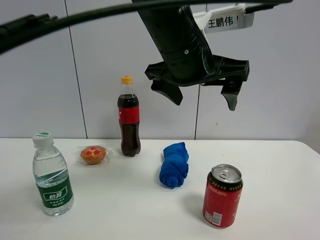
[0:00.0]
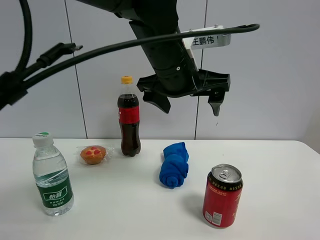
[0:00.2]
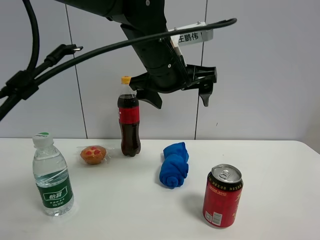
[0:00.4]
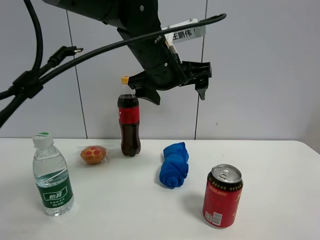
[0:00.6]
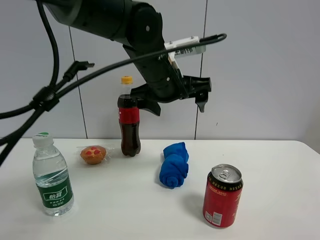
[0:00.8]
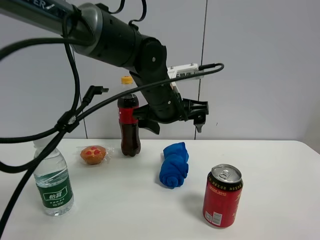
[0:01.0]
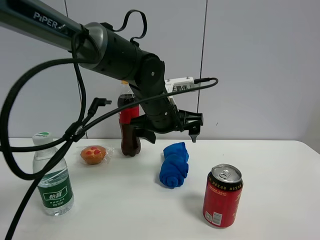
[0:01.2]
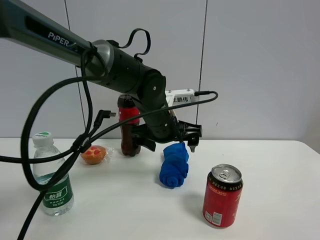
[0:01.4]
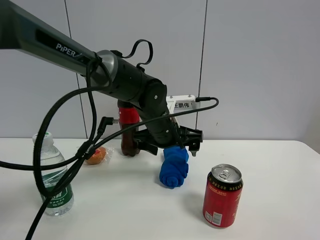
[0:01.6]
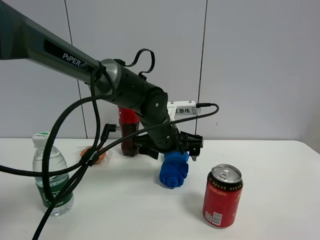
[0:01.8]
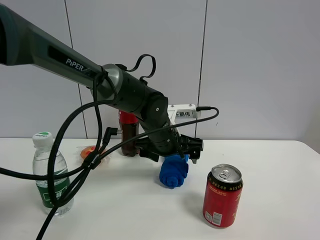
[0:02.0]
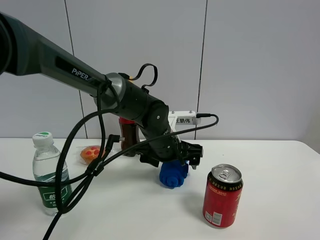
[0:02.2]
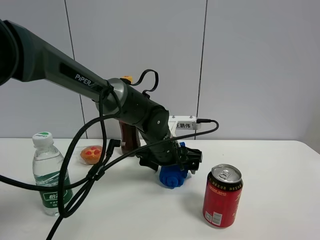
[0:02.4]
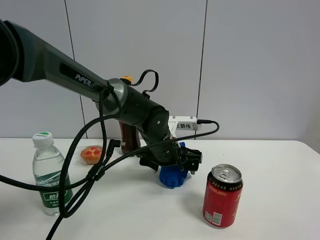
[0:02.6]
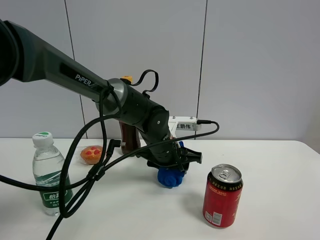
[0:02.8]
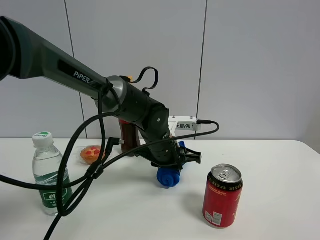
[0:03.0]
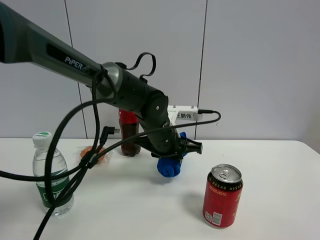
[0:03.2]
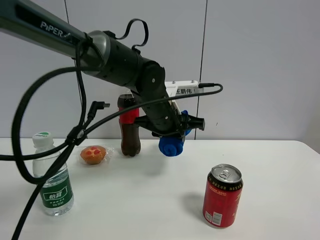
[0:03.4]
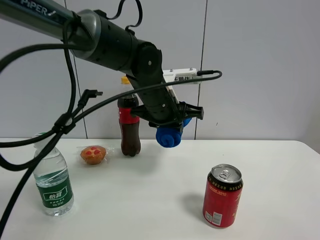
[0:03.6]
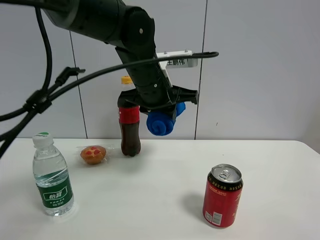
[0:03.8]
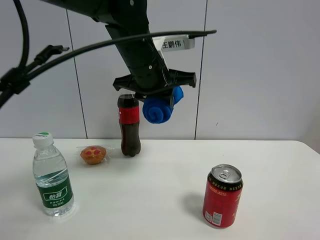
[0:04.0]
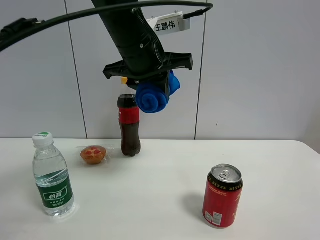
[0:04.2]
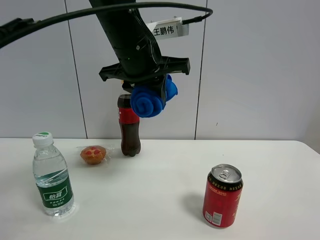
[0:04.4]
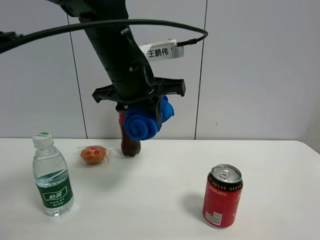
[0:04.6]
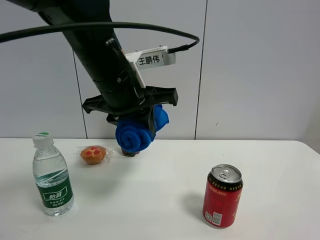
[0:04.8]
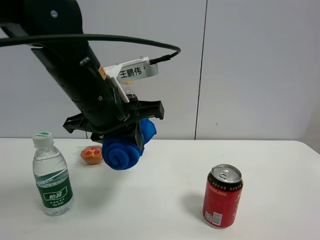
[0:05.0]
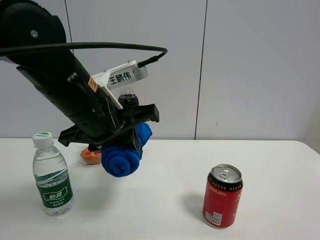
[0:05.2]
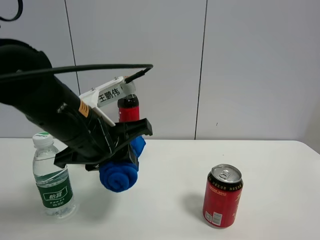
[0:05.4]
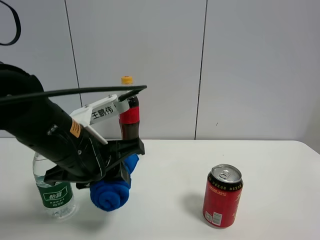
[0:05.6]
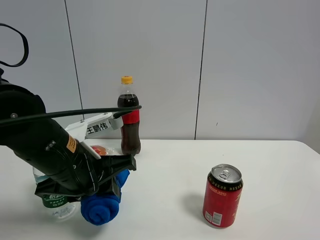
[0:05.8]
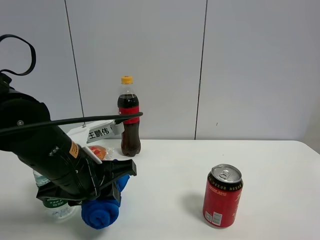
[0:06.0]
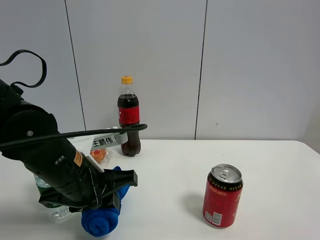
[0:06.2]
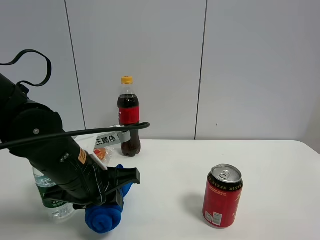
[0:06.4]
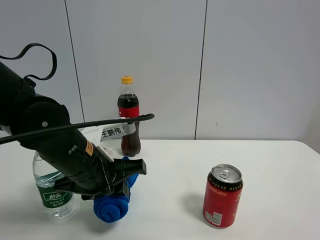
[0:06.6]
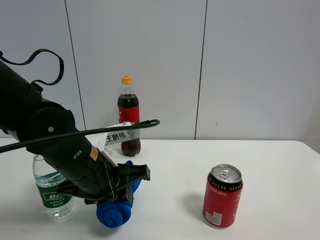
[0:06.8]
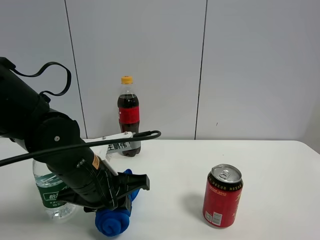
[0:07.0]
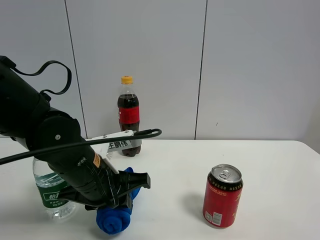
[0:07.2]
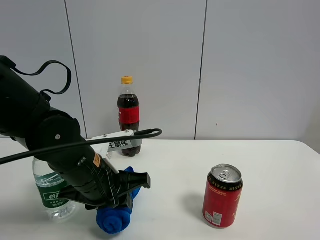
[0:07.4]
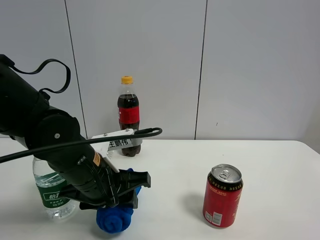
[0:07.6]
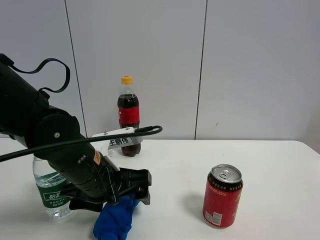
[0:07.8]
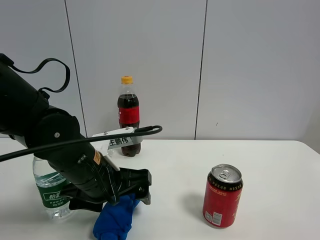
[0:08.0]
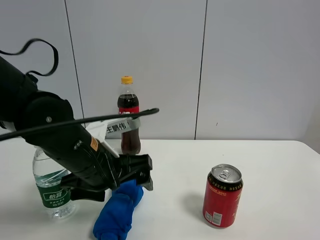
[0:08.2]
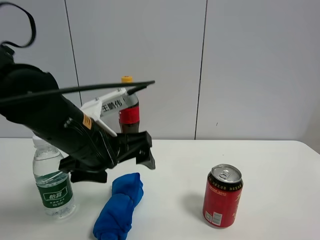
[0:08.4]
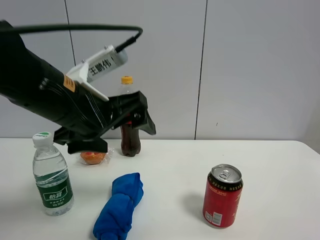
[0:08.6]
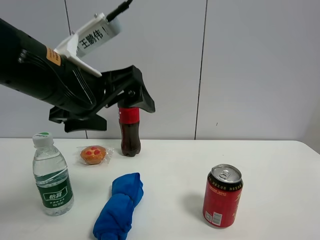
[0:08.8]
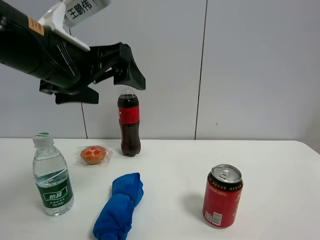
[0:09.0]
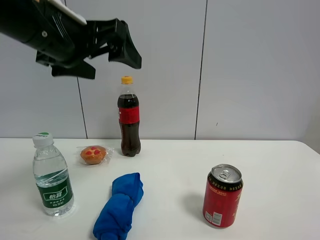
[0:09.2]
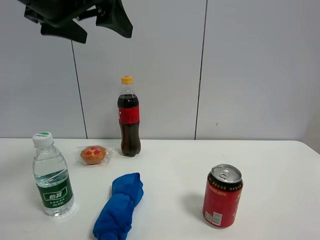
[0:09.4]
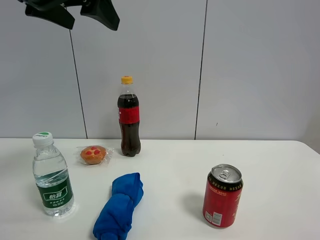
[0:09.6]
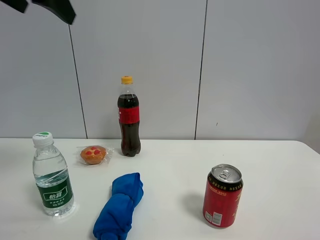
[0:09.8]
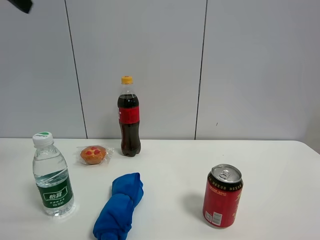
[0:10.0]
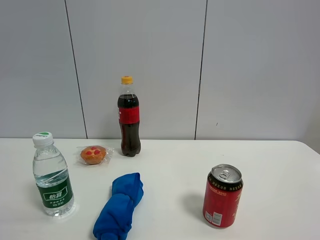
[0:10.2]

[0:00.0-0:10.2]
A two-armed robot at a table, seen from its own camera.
Task of the whole recording: the gripper move the object.
Step, 0:00.0 to 0:02.8: Grasp the blue towel with the left gripper.
Step, 0:03.0 to 0:08.0: Place the blue towel on the table with the left gripper.
0:00.0 to 0:01.4: The left gripper goes about 15 cm downward and forward.
0:01.4 to 0:03.0: The left gripper closes its fingers.
0:03.0 to 0:04.4: The left gripper goes about 20 cm upward.
0:04.4 to 0:05.8: The left gripper is displaced downward, backward and to the left by some 20 cm.
0:05.8 to 0:07.2: The grippers make only small movements.
0:07.2 to 0:08.8: The left gripper shifts about 15 cm upward, and opens.
0:08.8 to 0:10.2: The left gripper heads to the left and upward, covering approximately 30 cm.

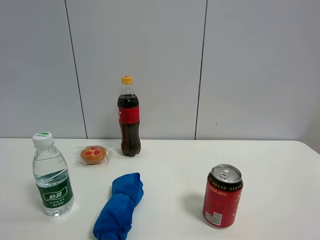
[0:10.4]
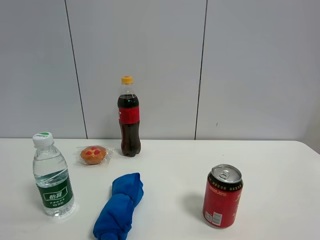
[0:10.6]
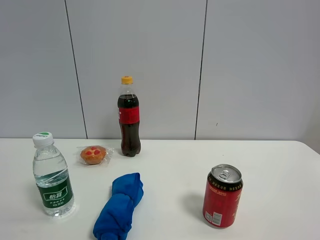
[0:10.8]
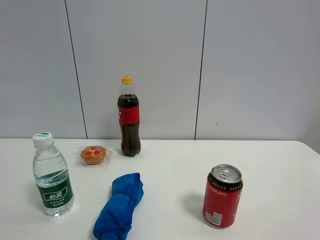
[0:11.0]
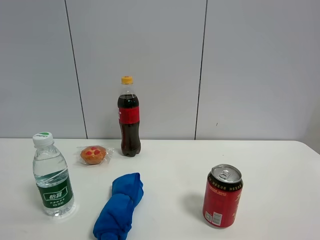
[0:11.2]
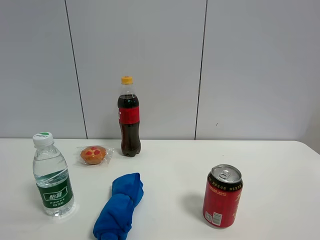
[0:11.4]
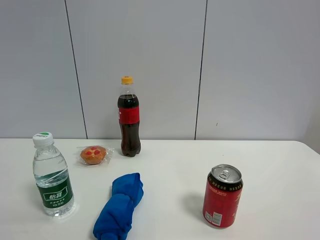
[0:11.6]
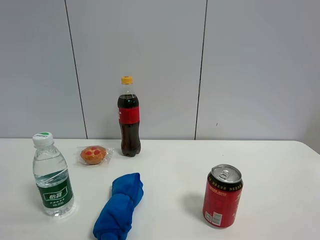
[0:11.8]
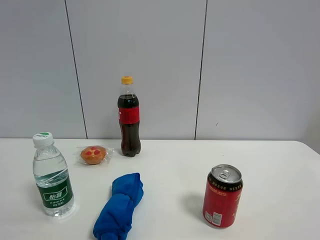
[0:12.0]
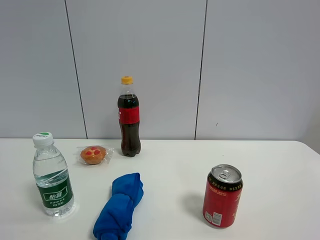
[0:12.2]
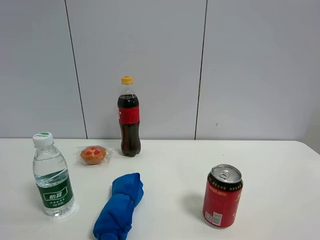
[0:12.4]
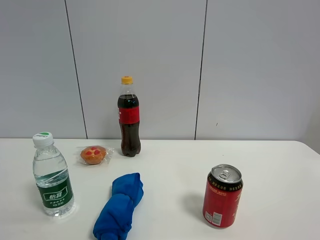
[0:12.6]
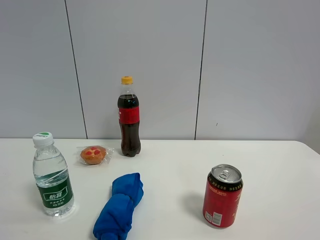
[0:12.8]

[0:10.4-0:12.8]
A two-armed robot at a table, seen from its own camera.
Task of the whole recording: the gripper move the object.
0:11.6 to 0:12.8: Both grippers stay about where they are.

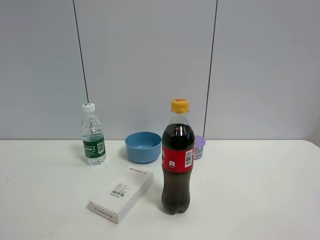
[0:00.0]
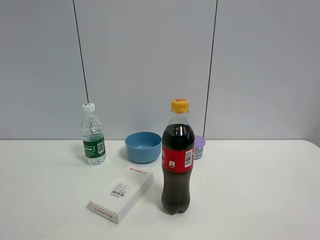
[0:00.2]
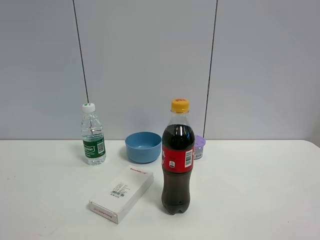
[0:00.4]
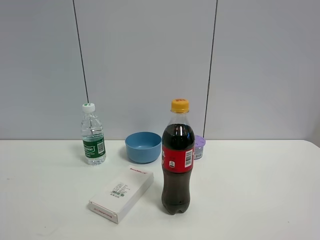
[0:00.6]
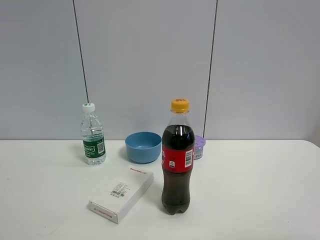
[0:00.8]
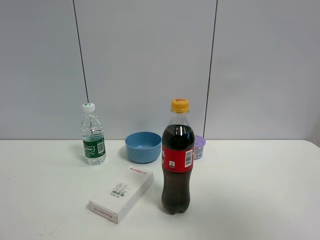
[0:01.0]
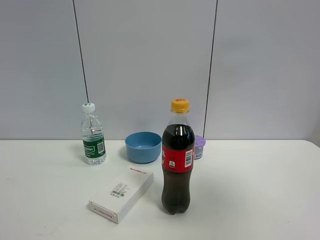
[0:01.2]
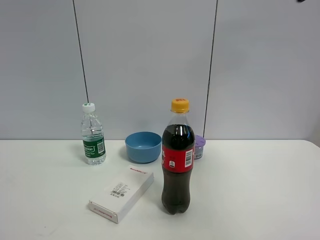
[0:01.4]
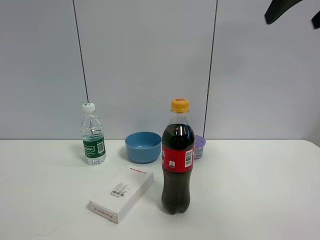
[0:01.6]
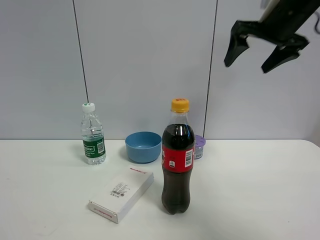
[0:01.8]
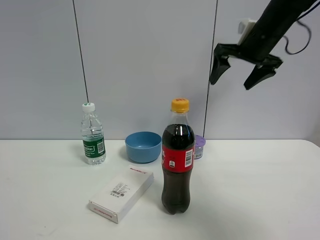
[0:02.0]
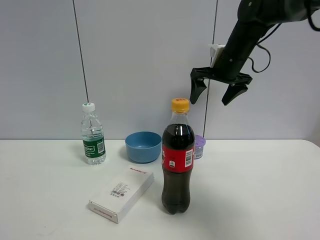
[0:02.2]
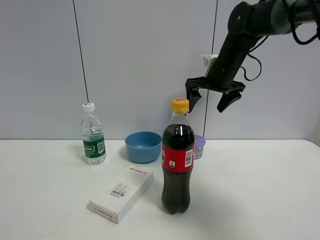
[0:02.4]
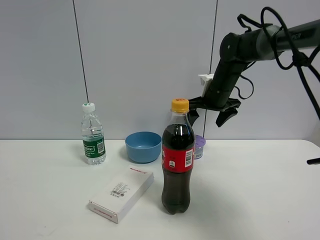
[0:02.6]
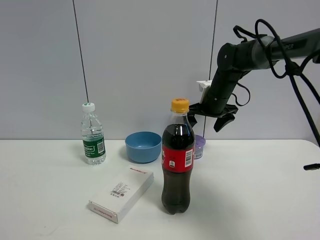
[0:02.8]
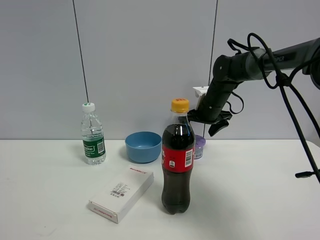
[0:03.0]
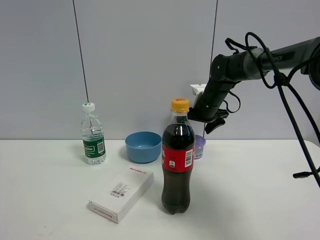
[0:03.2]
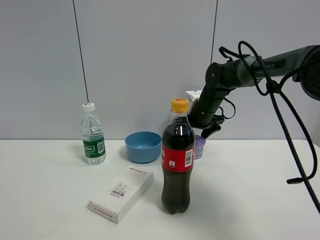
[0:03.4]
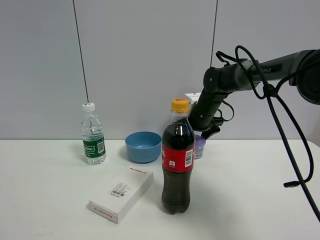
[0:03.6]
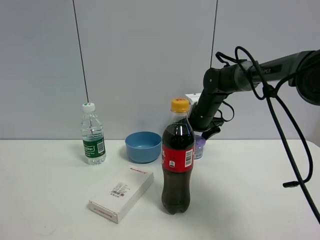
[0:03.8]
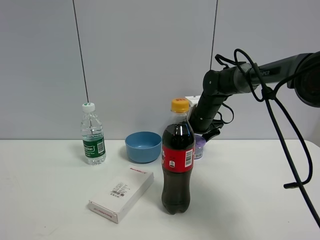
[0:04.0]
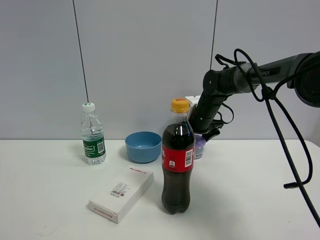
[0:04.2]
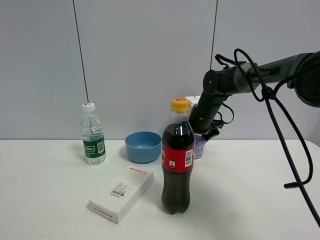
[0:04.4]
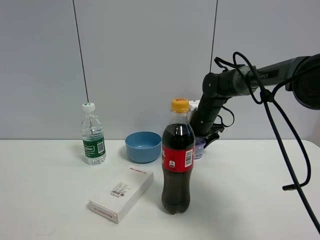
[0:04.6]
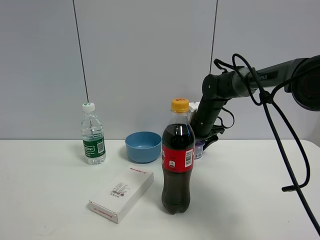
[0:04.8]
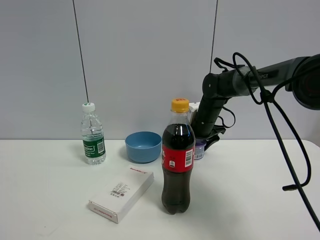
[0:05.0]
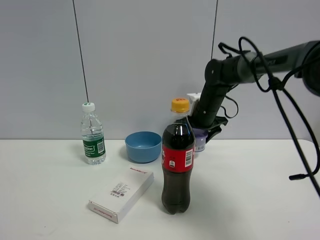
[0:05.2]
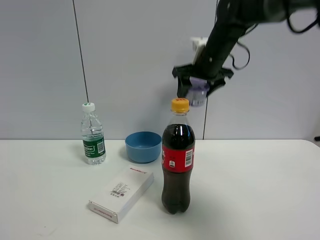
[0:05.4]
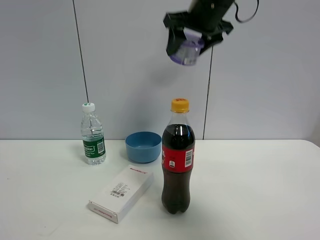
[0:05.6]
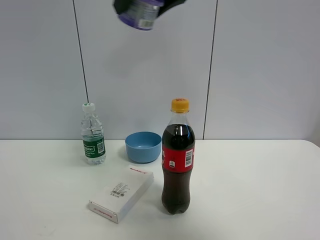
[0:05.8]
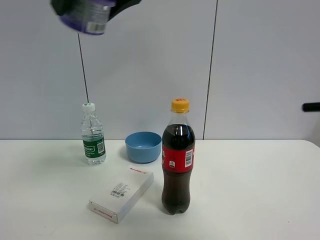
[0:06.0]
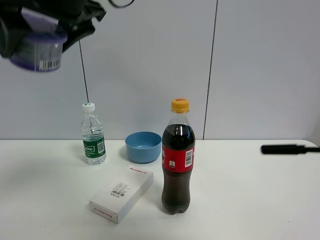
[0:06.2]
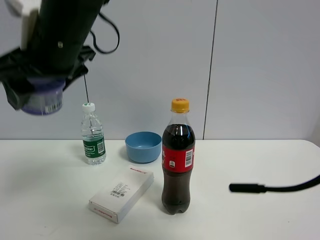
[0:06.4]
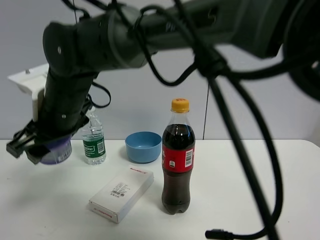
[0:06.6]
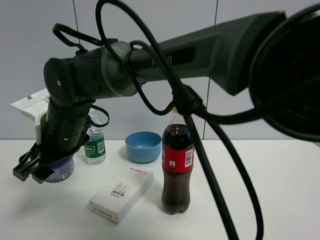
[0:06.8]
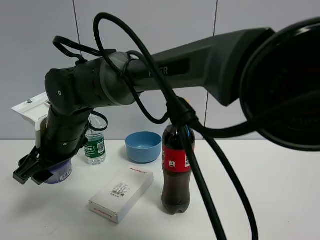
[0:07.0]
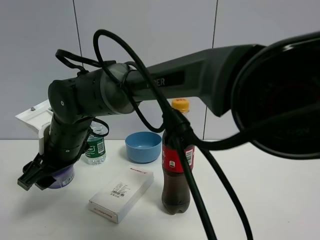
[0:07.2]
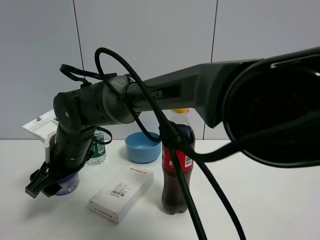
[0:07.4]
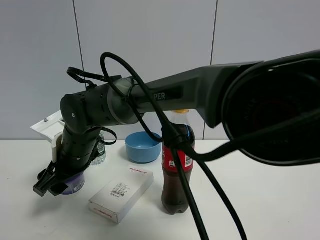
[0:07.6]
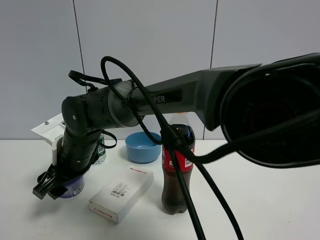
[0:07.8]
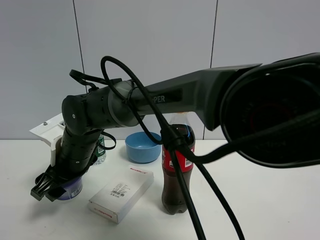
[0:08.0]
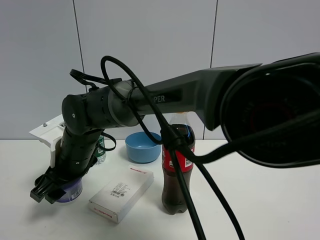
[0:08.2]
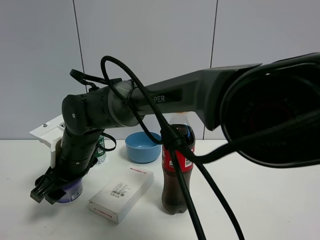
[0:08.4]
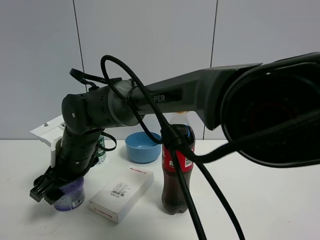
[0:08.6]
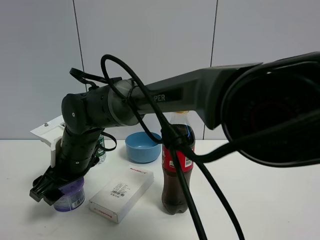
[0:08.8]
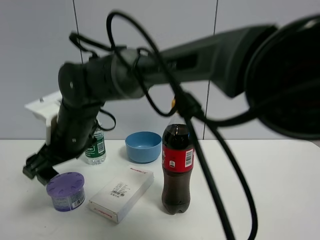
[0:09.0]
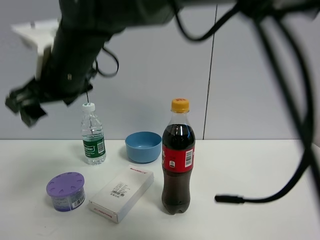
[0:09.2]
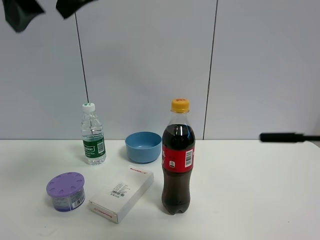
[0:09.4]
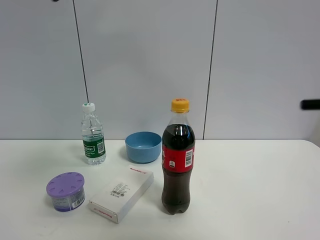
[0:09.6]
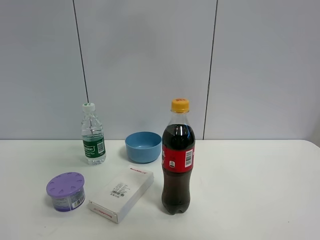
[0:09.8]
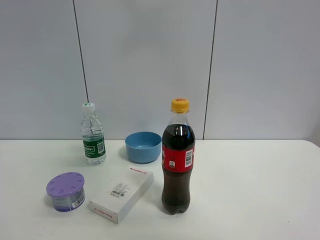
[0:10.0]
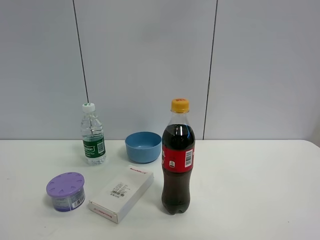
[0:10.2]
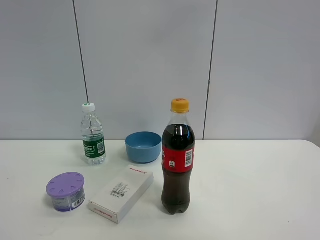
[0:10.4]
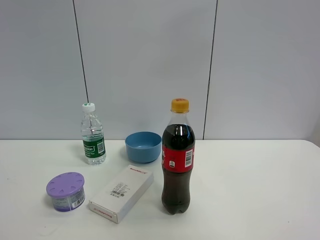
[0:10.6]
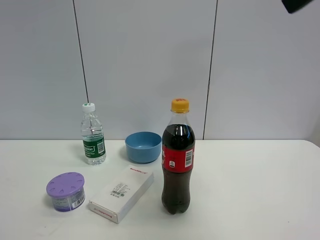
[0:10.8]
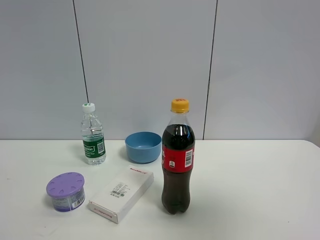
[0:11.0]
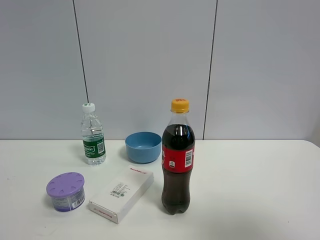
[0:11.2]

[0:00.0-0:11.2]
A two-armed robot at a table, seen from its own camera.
Task of the whole recording: the gripper move the object.
Step, 0:00.0 to 0:04.8: Grasp the Incense box with the right gripper.
Step, 0:05.0 to 0:09.0: Place the Incense box on the table with the right gripper.
0:00.0 to 0:01.6: The right gripper goes approximately 35 cm forward and upward, and closes, then opens again.
0:01.6 to 0:03.2: The right gripper travels downward, forward and to the left by some 35 cm.
0:03.2 to 0:04.8: The right gripper closes.
0:04.8 to 0:06.4: The right gripper is displaced to the left, backward and upward by approximately 40 cm.
0:06.4 to 0:08.0: The right gripper goes approximately 15 cm downward.
0:08.0 to 0:09.6: The right gripper heads upward, covering some 35 cm.
0:09.6 to 0:11.2: The right gripper is displaced to the right and backward by approximately 35 cm.
